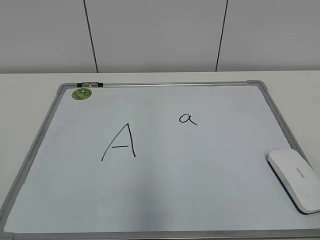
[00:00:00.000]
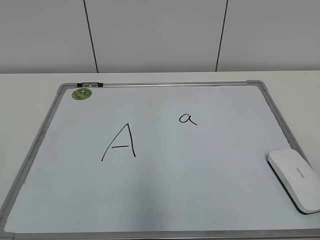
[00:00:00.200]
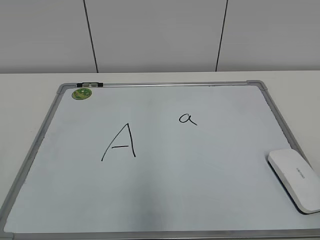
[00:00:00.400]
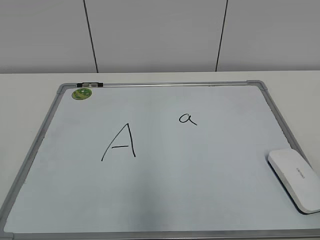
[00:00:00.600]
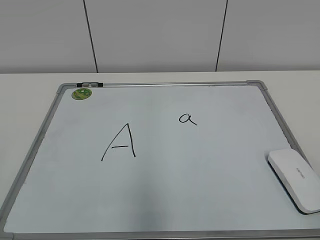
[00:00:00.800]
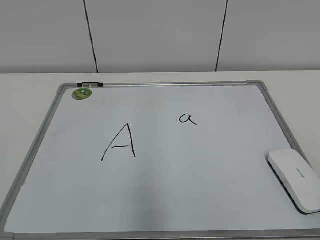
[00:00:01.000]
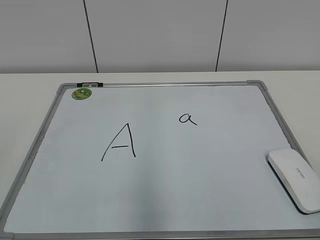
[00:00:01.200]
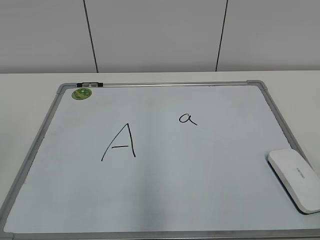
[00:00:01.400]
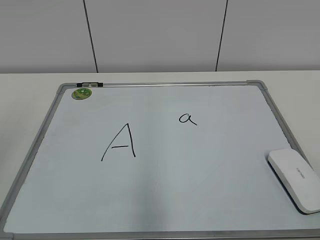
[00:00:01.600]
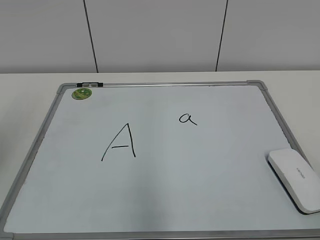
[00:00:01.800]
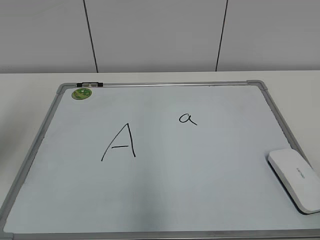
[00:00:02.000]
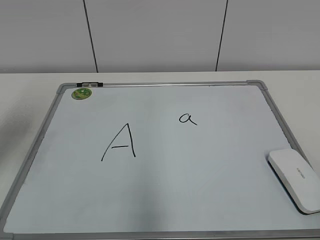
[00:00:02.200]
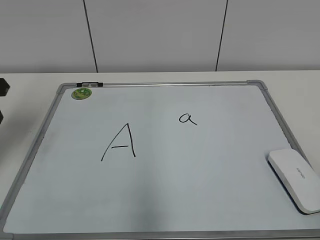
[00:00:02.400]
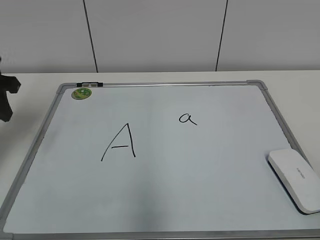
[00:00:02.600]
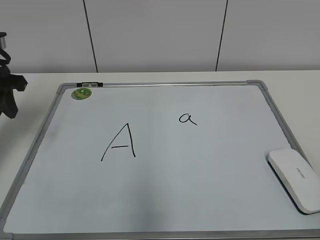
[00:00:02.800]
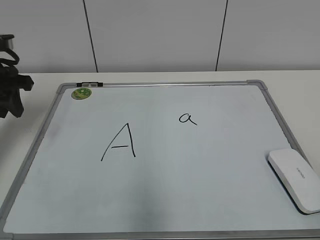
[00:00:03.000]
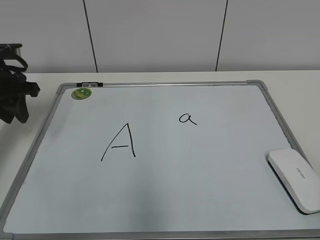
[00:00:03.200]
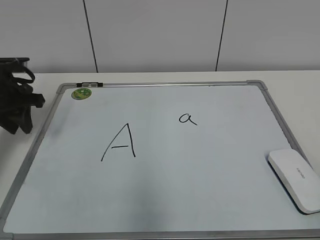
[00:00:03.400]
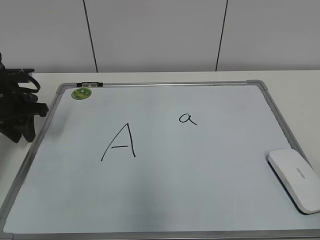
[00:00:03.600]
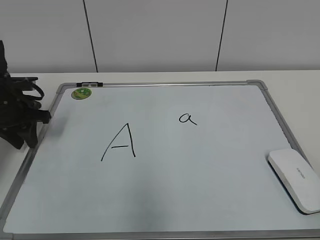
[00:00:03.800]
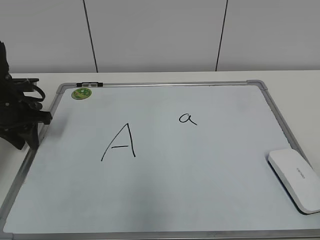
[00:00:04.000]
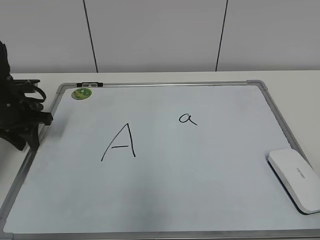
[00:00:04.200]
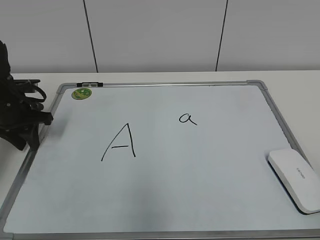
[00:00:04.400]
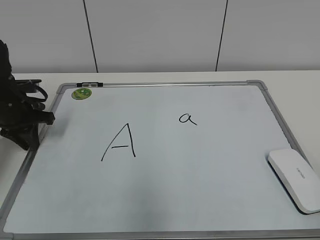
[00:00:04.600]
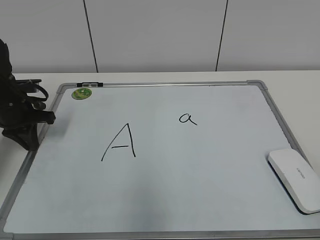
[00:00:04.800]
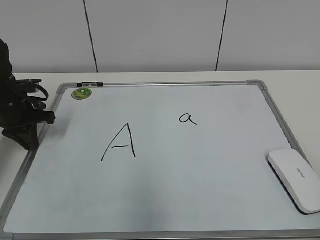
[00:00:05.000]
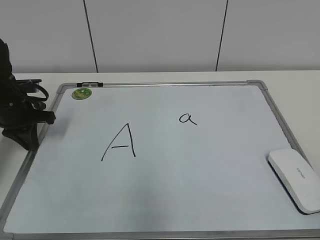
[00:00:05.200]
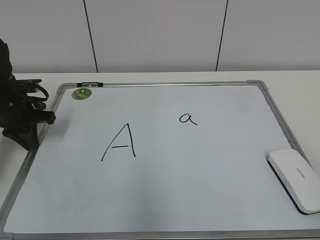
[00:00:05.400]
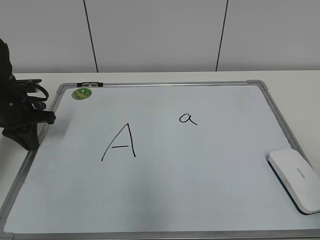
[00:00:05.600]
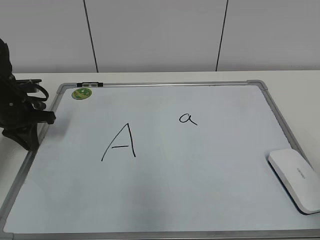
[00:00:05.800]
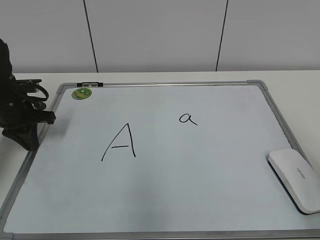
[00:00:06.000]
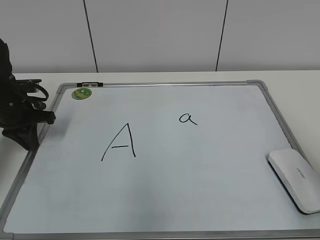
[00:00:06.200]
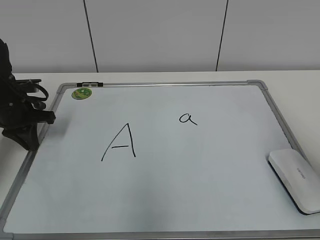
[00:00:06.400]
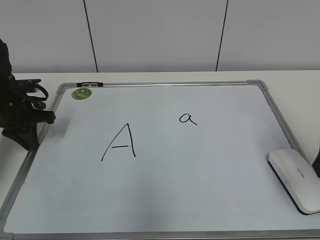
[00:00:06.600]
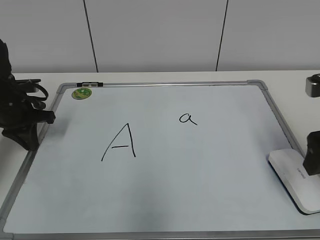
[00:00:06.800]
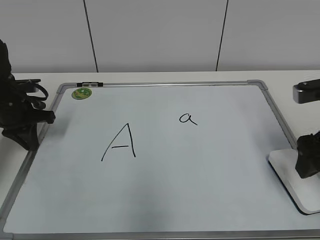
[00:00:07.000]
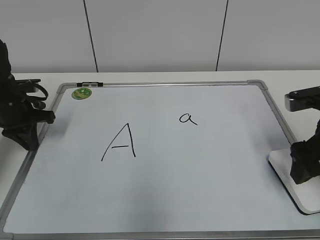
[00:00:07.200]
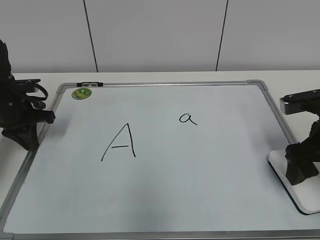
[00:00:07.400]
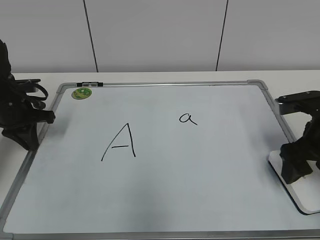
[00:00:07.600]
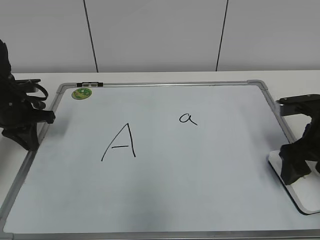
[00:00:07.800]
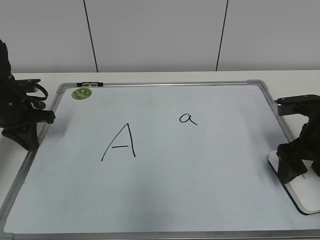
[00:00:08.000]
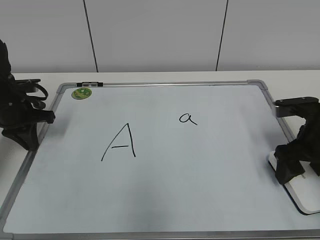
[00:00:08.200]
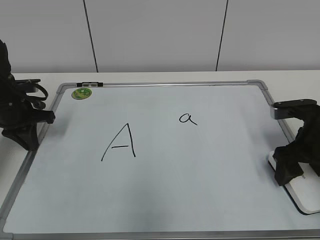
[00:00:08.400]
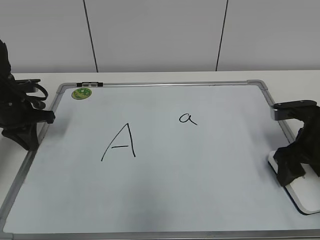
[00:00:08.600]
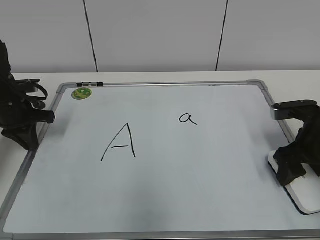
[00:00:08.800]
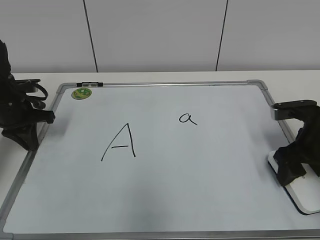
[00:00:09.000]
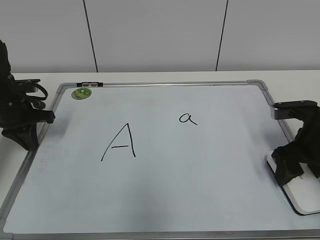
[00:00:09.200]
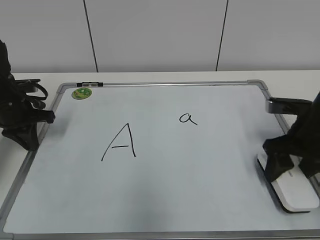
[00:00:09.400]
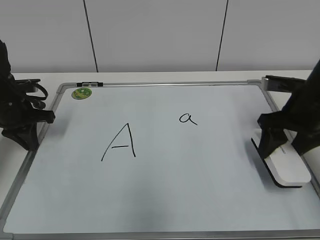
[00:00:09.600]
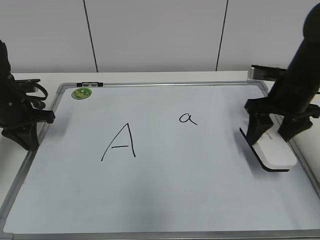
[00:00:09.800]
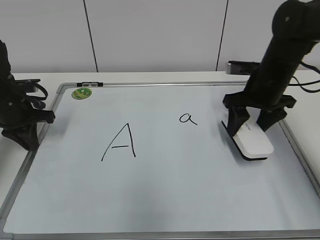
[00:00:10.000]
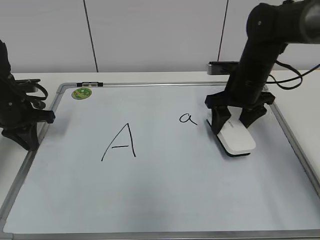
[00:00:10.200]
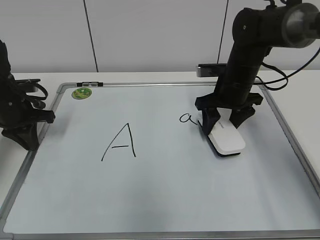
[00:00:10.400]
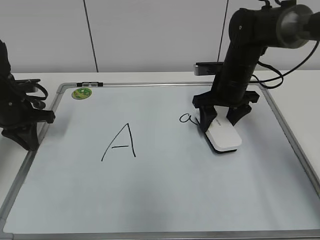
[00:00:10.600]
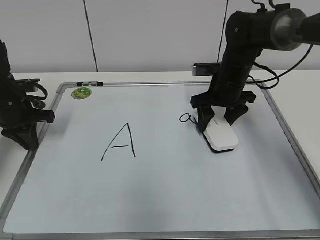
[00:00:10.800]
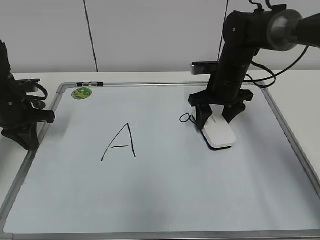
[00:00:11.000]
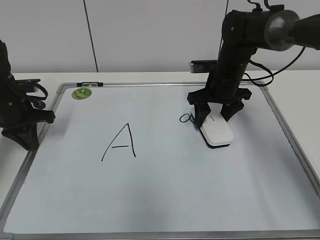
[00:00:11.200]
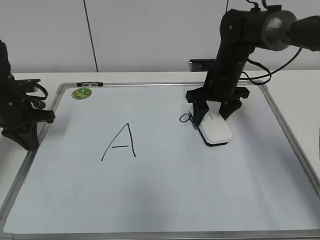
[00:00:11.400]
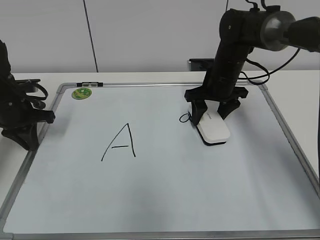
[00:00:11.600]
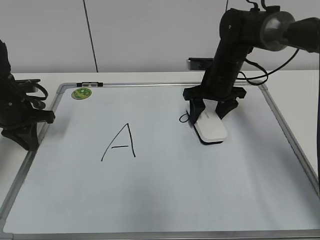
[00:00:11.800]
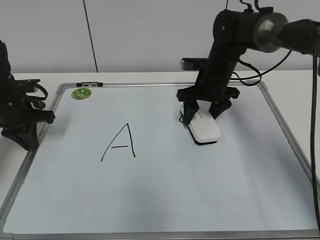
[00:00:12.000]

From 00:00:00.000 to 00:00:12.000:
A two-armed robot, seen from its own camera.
Task of the whole recording: pick up the eraser on the blackboard and erase the letter "a".
Step, from 00:00:00.000 to 00:00:04.800: Hold the drawing board steady with your left hand.
Step, from 00:00:05.000 to 00:00:09.000: Grab the eraser with your right hand.
From 00:00:01.600 to 00:00:03.000: The left gripper heads forward, covering roughly 25 cm.
From 00:00:03.000 to 00:00:04.400: The left gripper moves downward, about 10 cm.
From 00:00:04.400 to 00:00:06.000: The left gripper closes its fingers.
From 00:00:06.000 to 00:00:07.600: The right gripper shifts some 20 cm forward and downward, and opens.
From 00:00:07.600 to 00:00:09.000: The right gripper closes.
From 00:00:09.000 to 00:00:10.400: The right gripper travels forward and to the left by approximately 15 cm.
From 00:00:10.400 to 00:00:12.000: The right gripper changes place by roughly 5 cm.

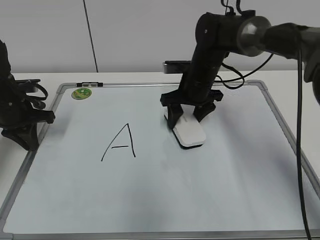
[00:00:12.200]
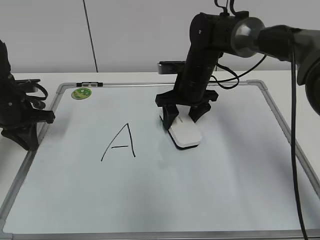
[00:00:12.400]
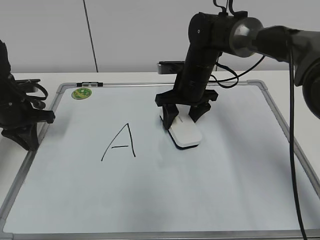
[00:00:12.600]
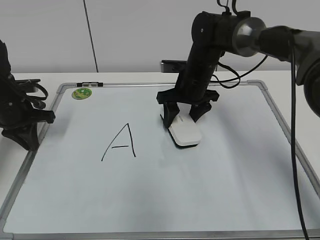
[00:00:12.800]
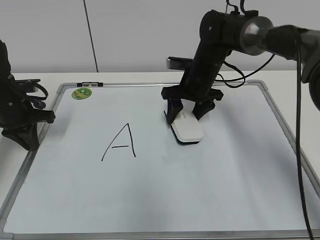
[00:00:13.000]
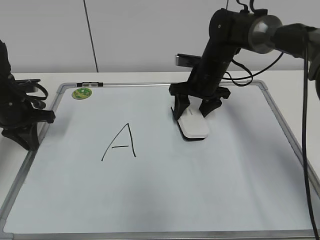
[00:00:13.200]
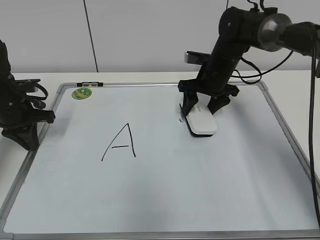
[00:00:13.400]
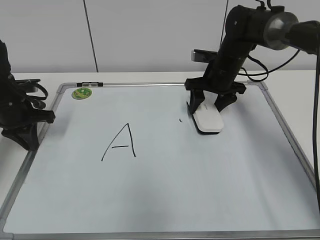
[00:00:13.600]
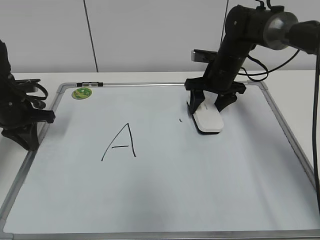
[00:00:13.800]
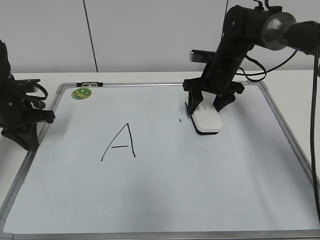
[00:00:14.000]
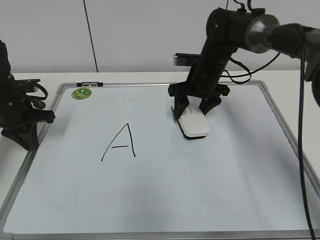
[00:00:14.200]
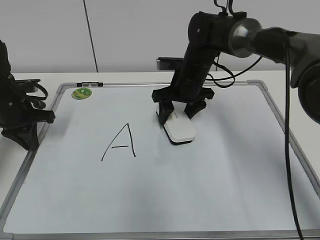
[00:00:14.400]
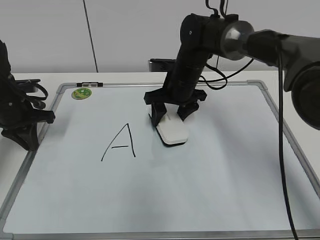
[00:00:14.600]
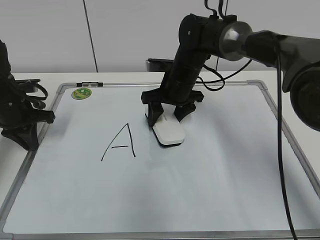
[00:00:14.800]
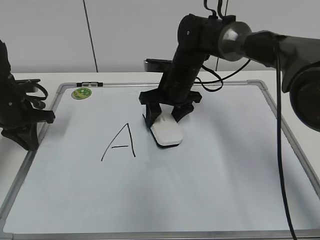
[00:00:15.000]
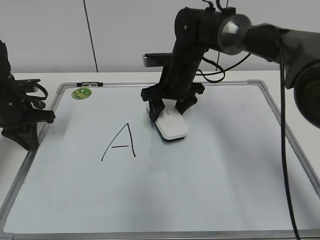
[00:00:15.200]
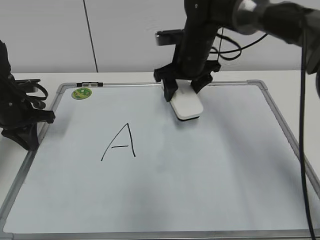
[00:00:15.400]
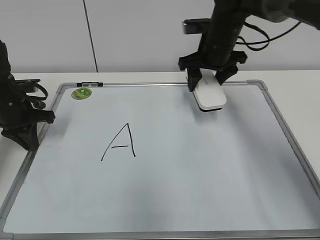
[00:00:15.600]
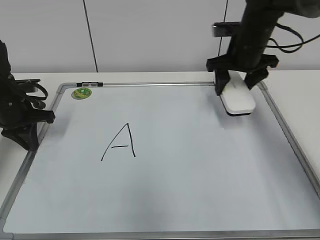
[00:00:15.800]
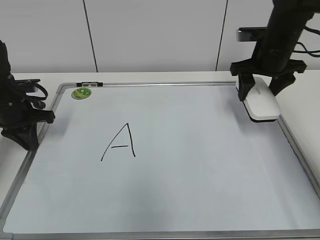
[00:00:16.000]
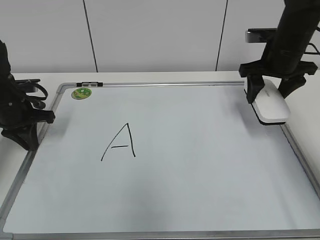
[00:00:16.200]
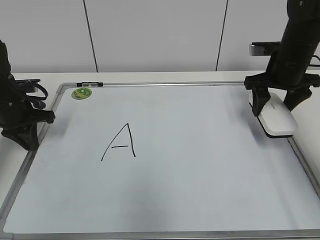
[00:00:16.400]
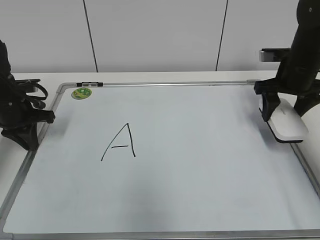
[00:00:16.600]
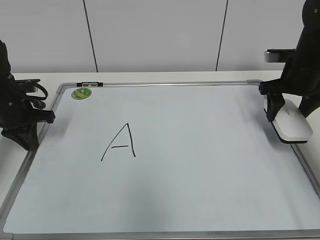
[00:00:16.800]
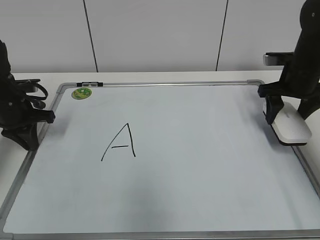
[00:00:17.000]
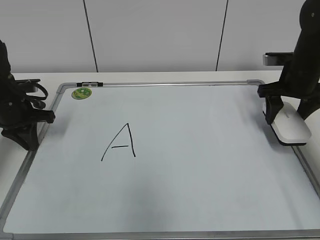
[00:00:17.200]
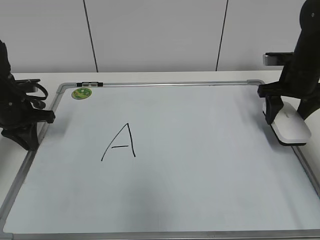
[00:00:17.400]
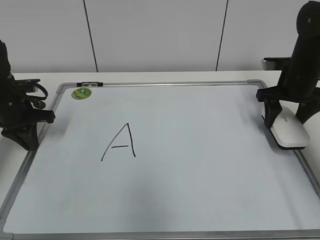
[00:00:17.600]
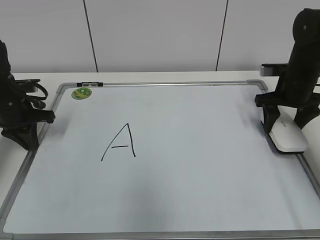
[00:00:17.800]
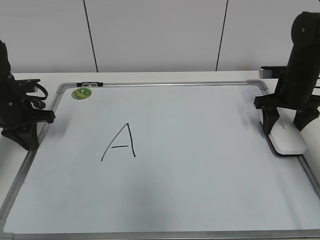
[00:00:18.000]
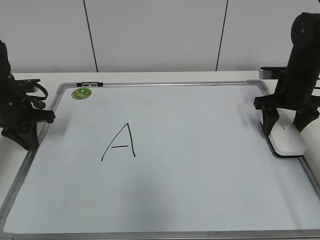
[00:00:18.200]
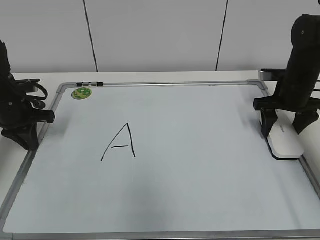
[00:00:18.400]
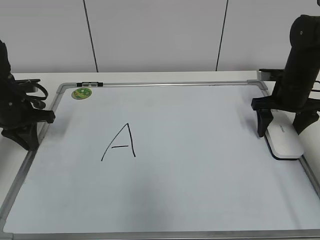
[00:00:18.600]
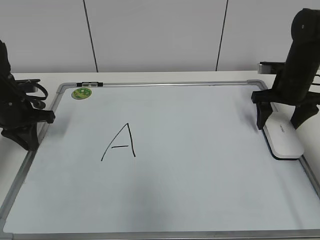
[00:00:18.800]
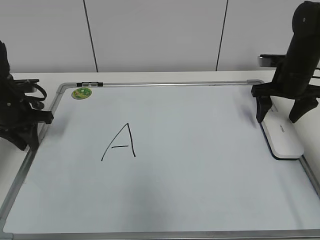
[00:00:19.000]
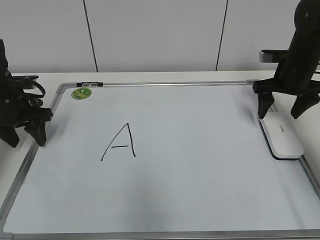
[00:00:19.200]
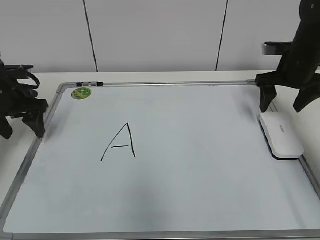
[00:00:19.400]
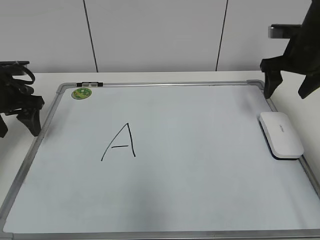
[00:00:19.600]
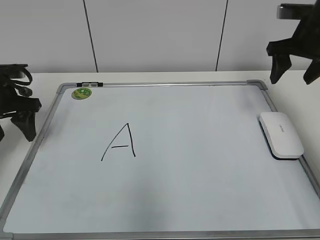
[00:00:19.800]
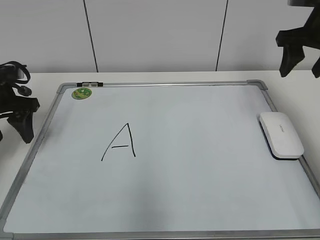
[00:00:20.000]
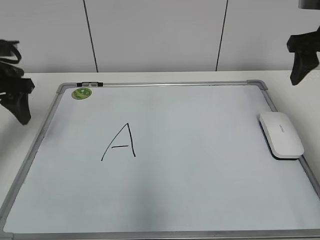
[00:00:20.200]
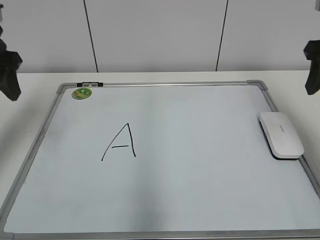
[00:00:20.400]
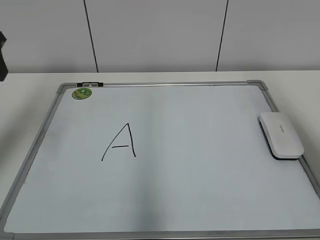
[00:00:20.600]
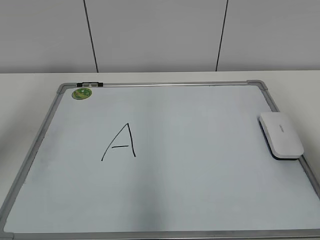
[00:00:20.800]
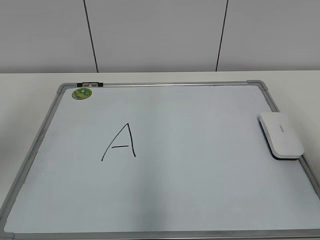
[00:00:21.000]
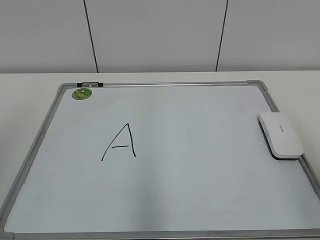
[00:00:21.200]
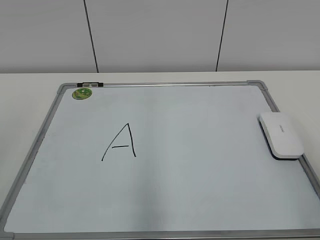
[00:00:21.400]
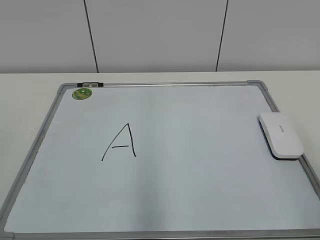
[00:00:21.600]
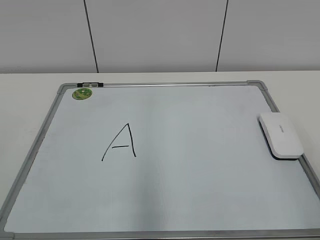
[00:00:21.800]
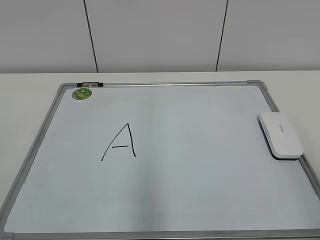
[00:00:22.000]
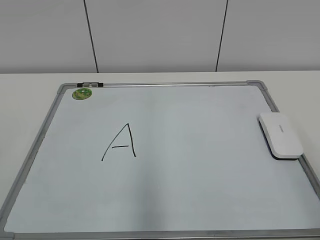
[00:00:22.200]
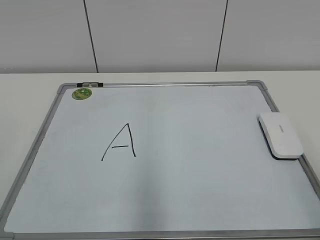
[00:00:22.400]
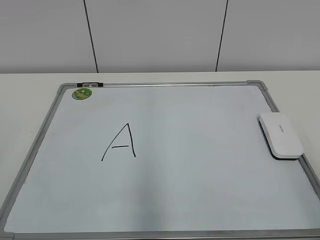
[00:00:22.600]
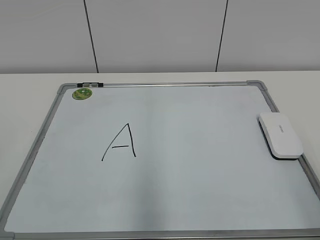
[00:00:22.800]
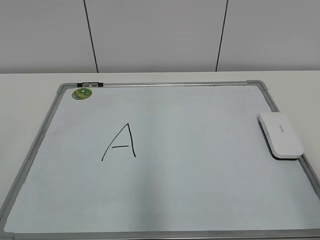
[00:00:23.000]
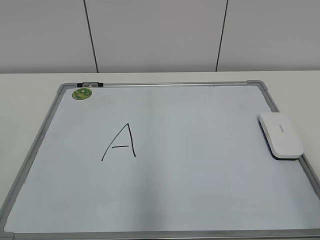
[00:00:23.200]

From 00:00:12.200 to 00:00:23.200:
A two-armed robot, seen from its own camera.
Task of the whole recording: pick up the eraser on the blackboard and erase the letter "a".
Step, from 00:00:12.200 to 00:00:14.400: Erase the letter a with your right hand.
Step, from 00:00:14.800 to 00:00:18.600: Put down the eraser with your right hand.
From 00:00:12.200 to 00:00:13.800: The right gripper is displaced to the right by about 5 cm.
From 00:00:13.800 to 00:00:15.400: The right gripper travels to the left and upward by some 10 cm.
From 00:00:15.400 to 00:00:17.000: The right gripper goes roughly 20 cm to the right.
From 00:00:17.000 to 00:00:18.400: There are only small adjustments of the grippers.
From 00:00:18.400 to 00:00:20.000: The left gripper moves upward, some 5 cm, and opens, while the right gripper goes approximately 15 cm upward, and opens, then closes again.
From 00:00:20.000 to 00:00:21.600: The right gripper is displaced backward by approximately 35 cm. Meanwhile the left gripper goes approximately 35 cm backward and upward.
